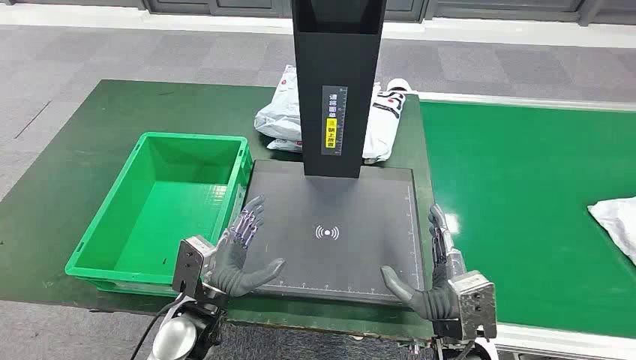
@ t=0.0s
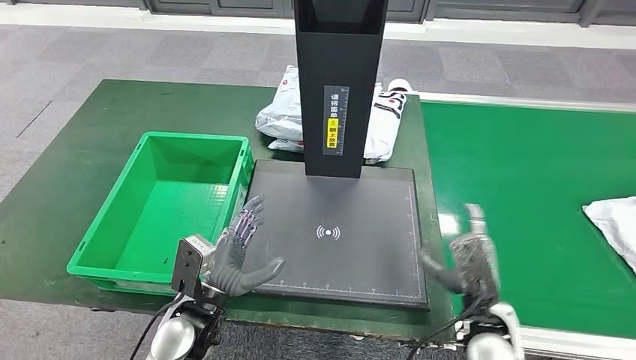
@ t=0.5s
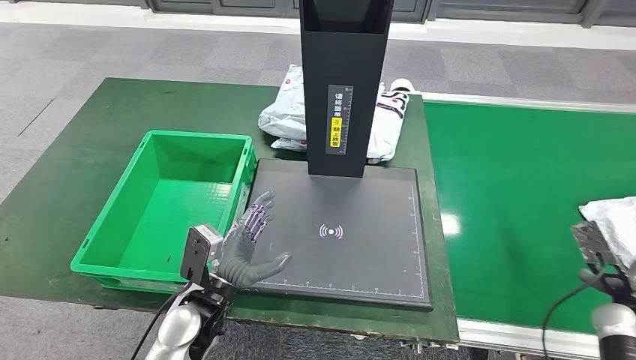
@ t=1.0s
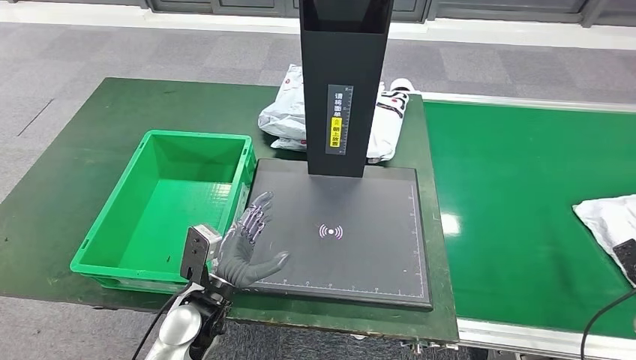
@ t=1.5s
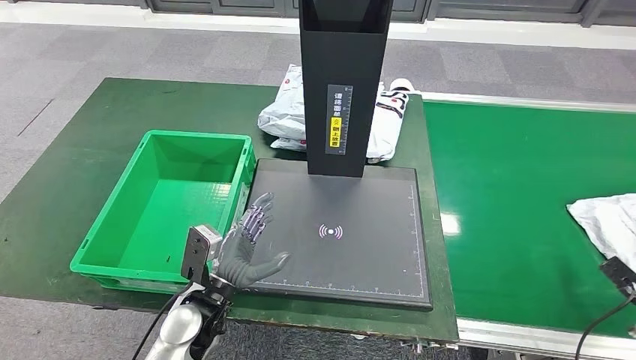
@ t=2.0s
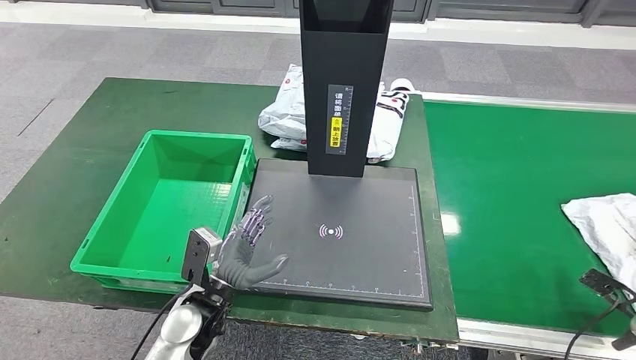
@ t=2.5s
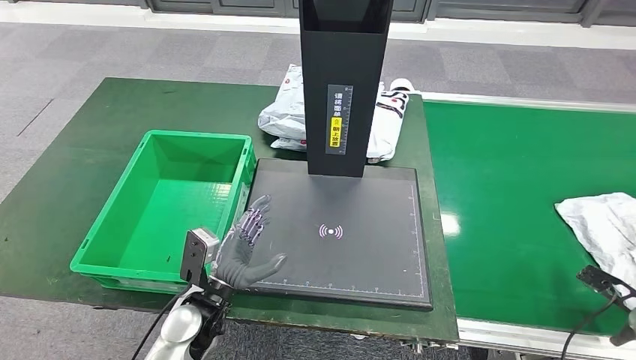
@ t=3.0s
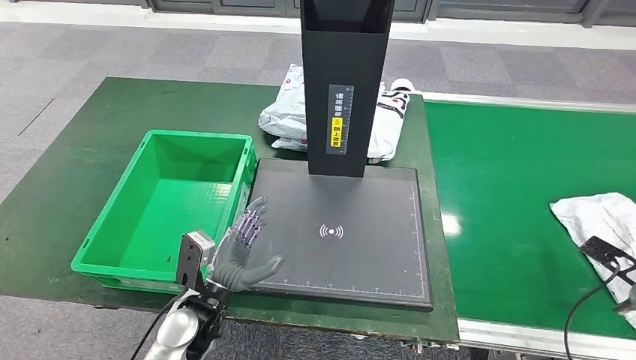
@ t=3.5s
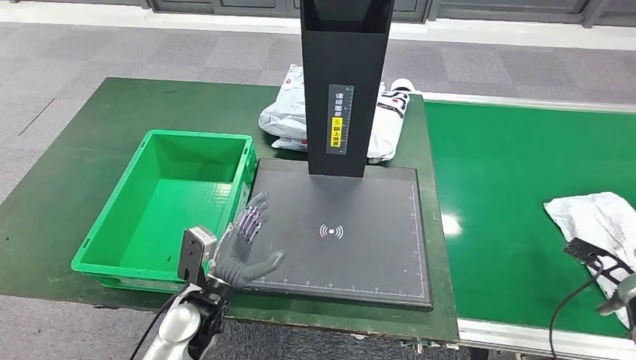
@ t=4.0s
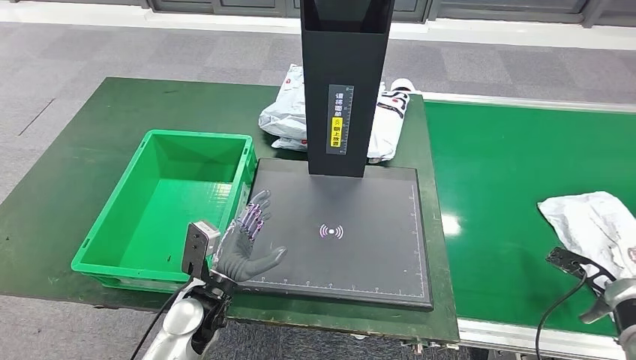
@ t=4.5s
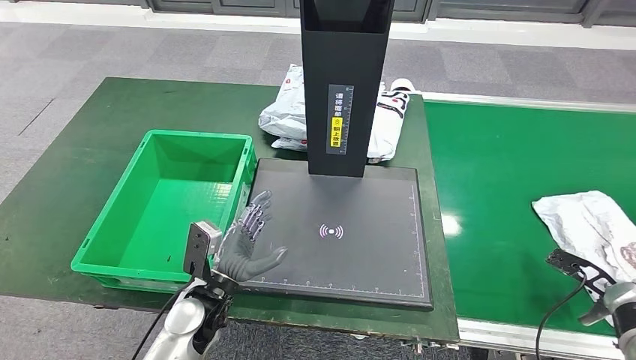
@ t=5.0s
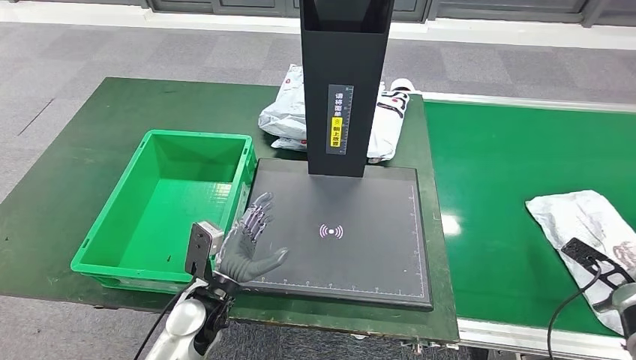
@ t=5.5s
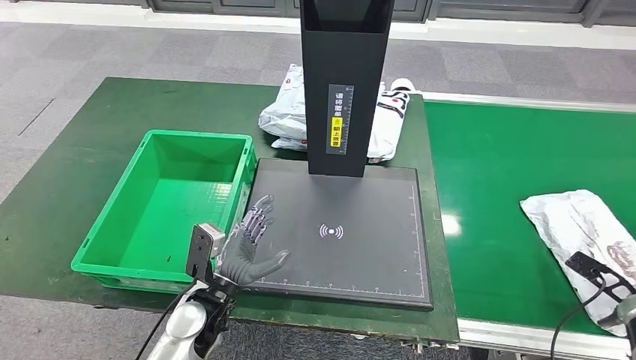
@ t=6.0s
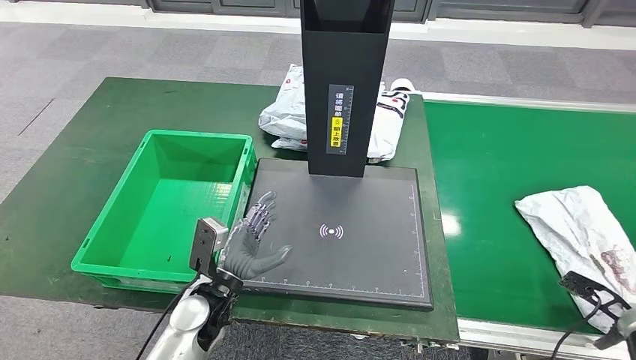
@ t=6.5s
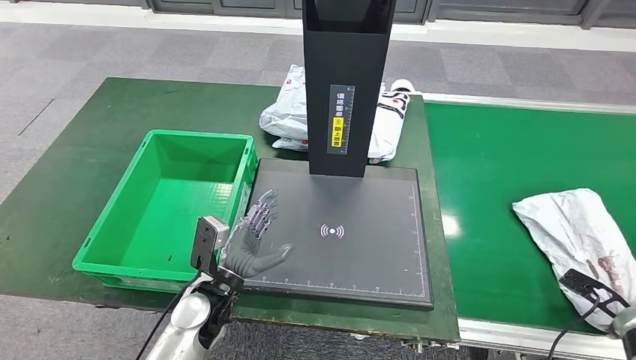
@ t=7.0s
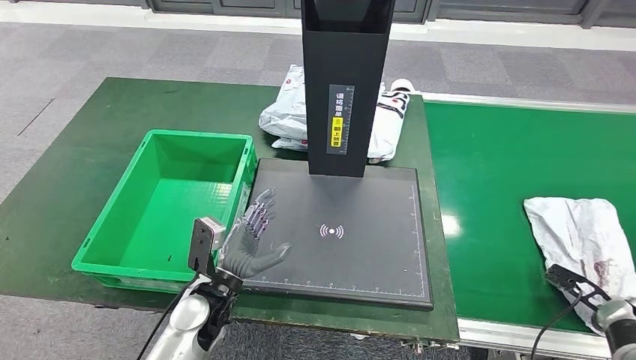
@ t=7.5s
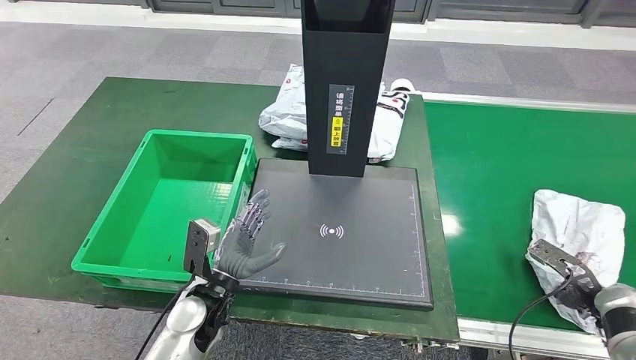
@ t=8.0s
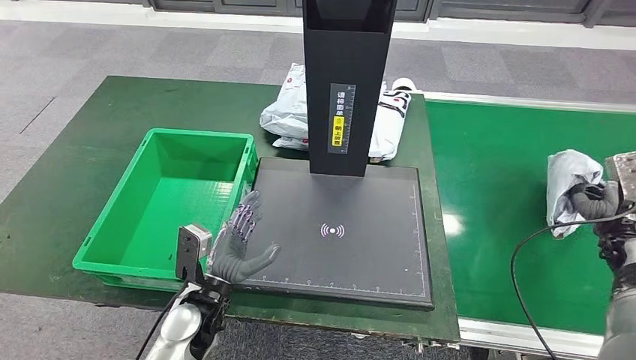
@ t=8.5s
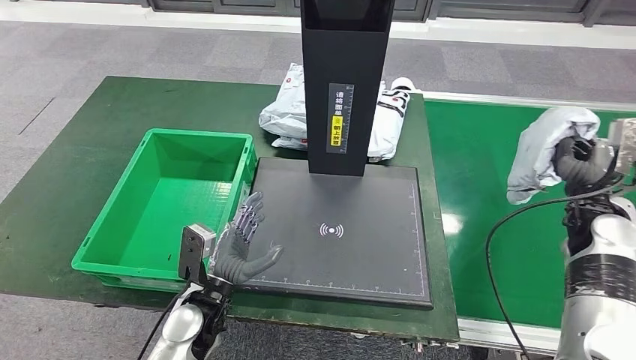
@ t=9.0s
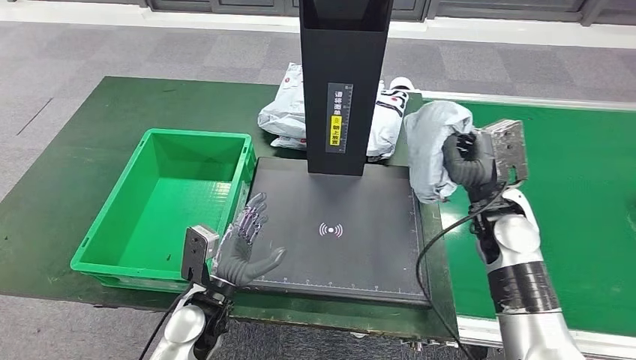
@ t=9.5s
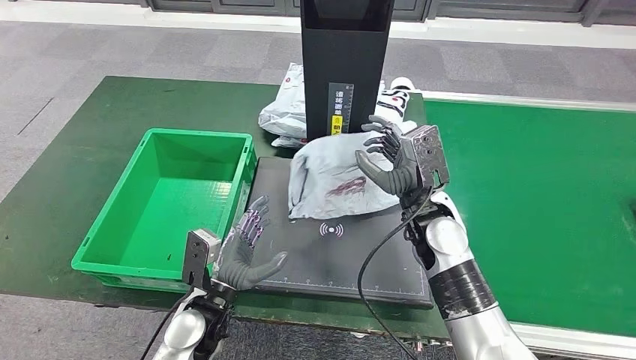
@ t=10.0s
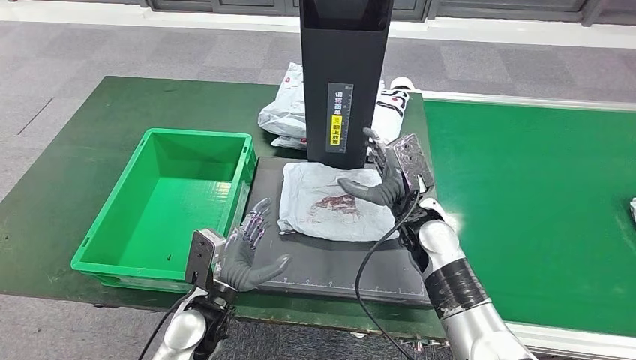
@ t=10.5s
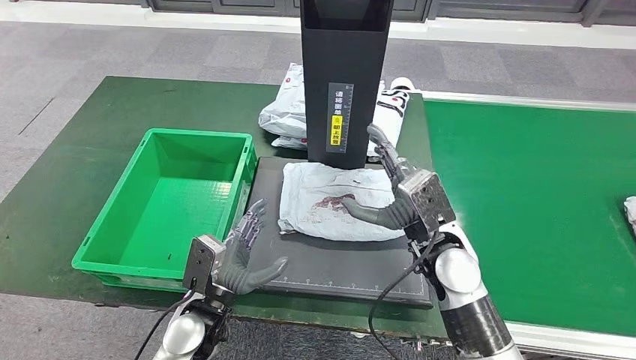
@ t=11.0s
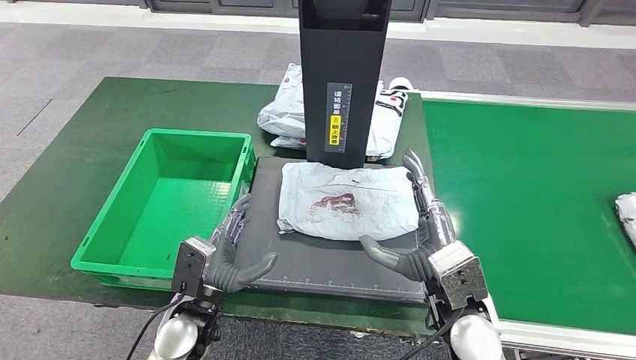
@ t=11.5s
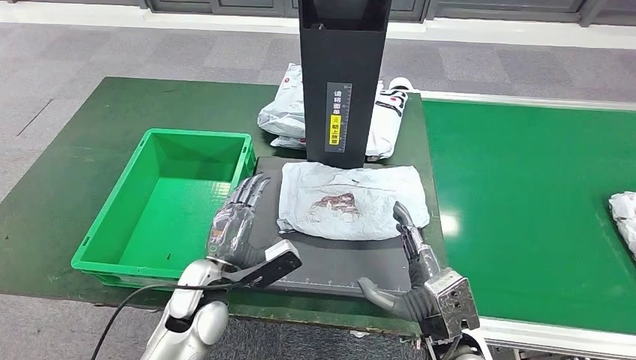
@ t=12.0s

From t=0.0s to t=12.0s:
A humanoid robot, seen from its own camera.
Step, from t=0.0s to t=9.0s: Take the parcel off the conveyor belt.
From t=2.0s to t=4.0s: The right hand is displaced forward by roughly 5 cm.
From t=4.0s to t=6.0s: The hands move only a little.
From t=10.0s to t=12.0s: The right hand heads backward, covering about 20 cm.

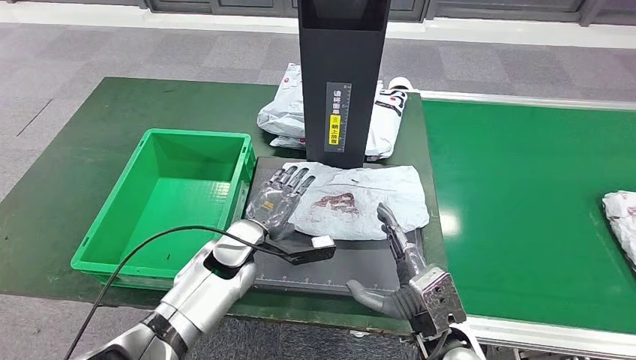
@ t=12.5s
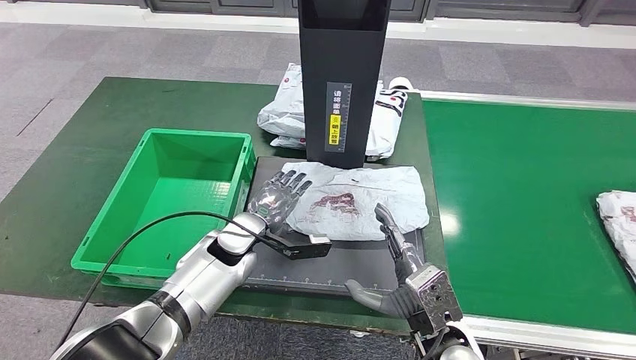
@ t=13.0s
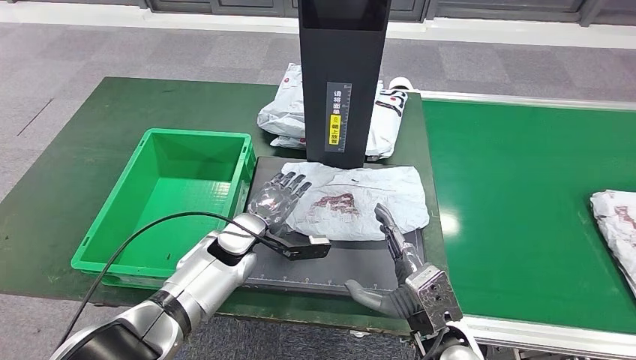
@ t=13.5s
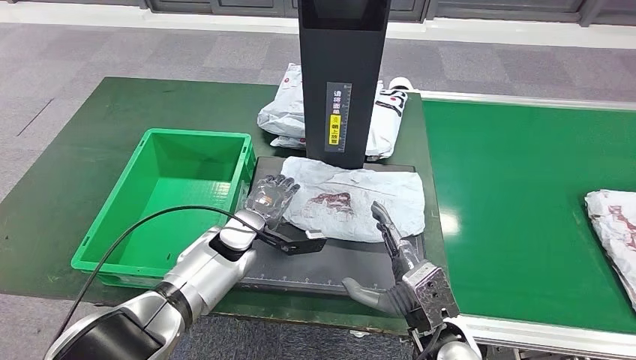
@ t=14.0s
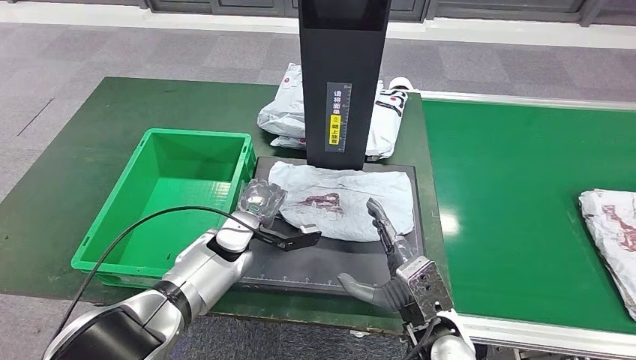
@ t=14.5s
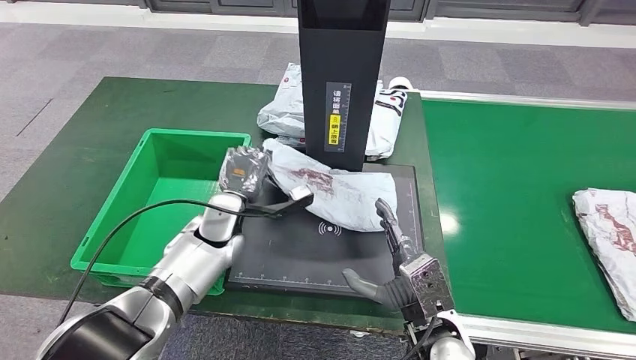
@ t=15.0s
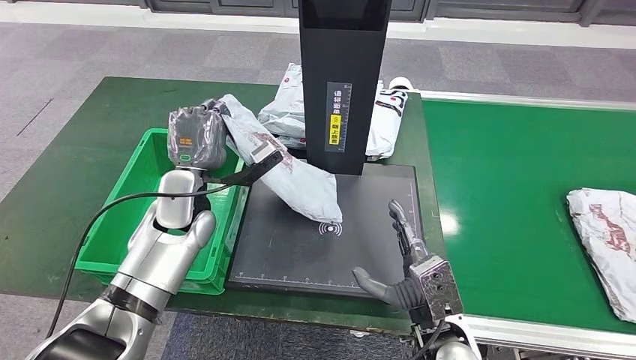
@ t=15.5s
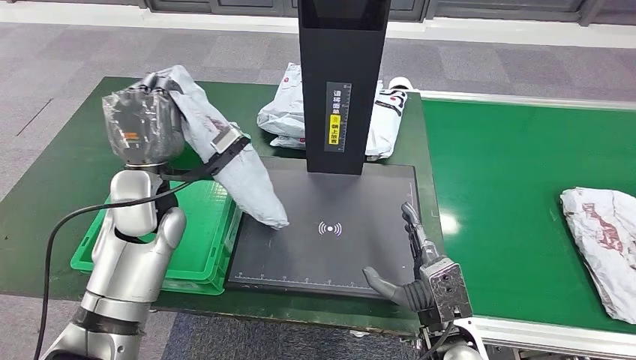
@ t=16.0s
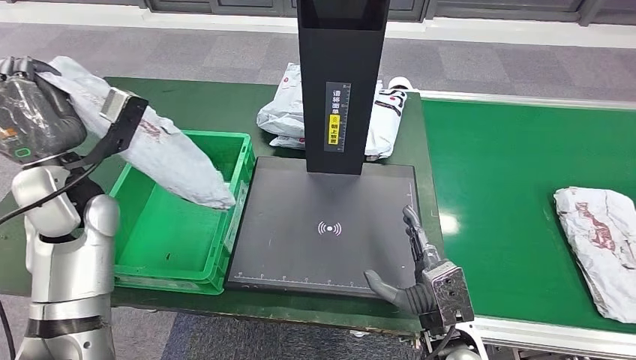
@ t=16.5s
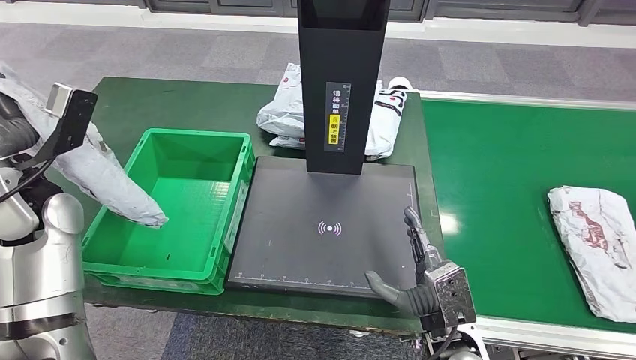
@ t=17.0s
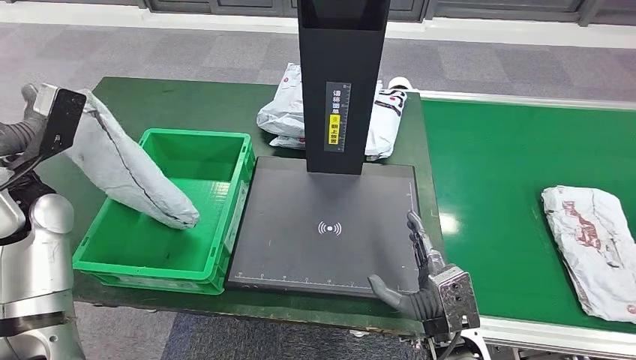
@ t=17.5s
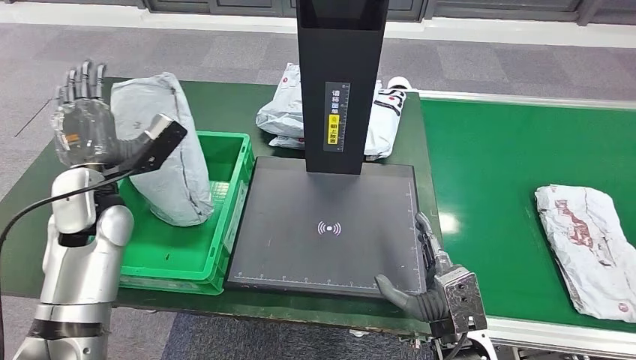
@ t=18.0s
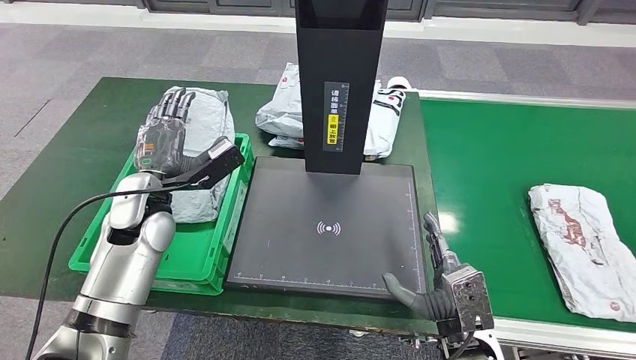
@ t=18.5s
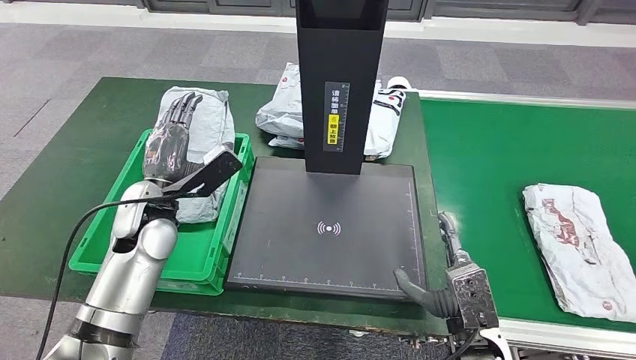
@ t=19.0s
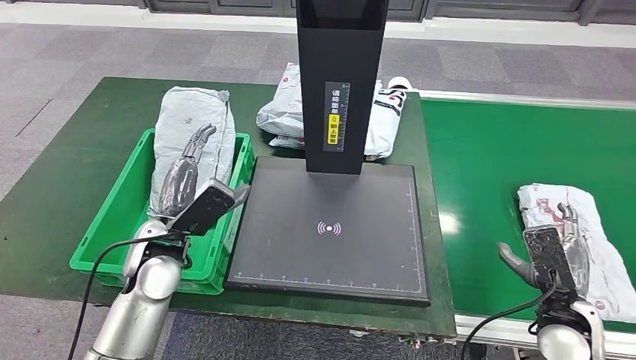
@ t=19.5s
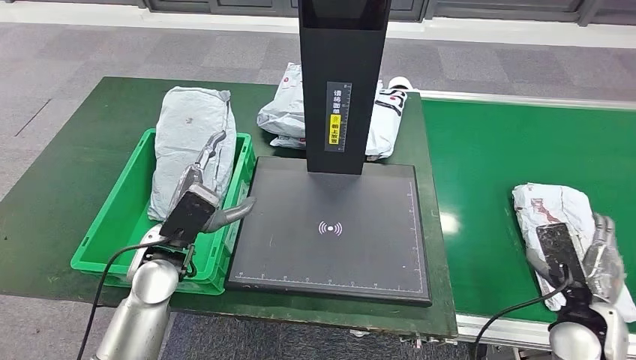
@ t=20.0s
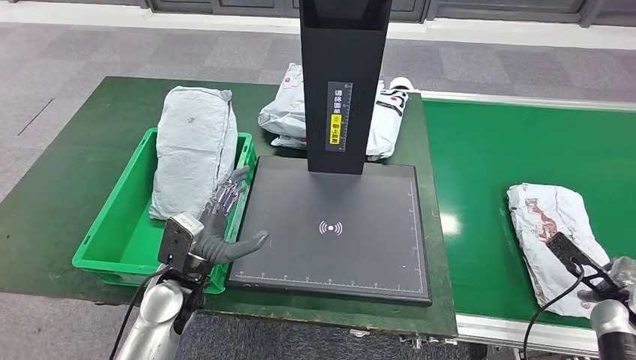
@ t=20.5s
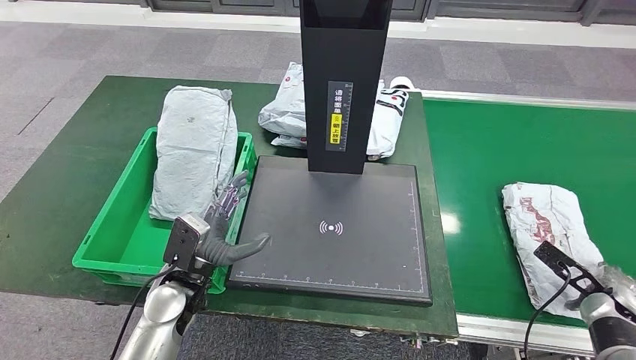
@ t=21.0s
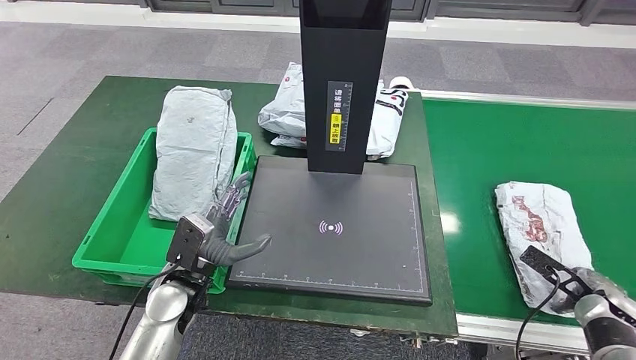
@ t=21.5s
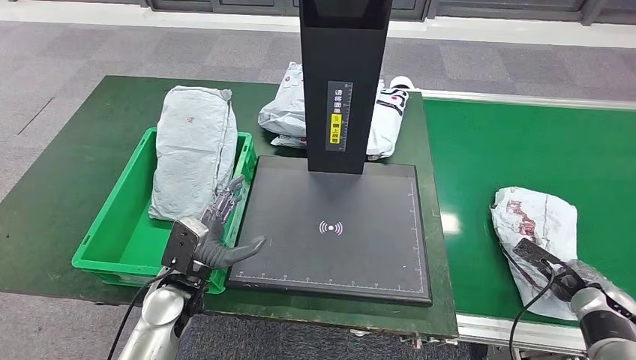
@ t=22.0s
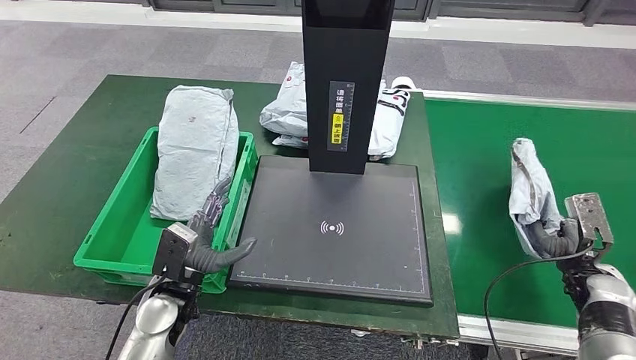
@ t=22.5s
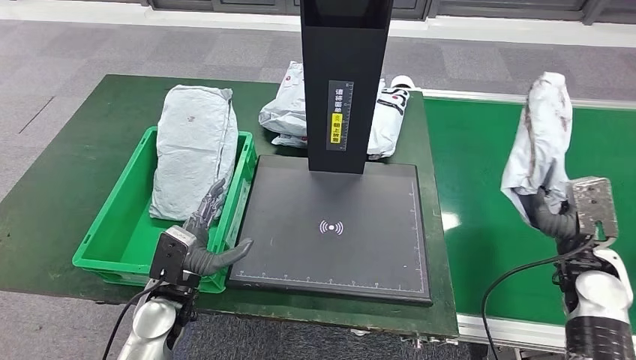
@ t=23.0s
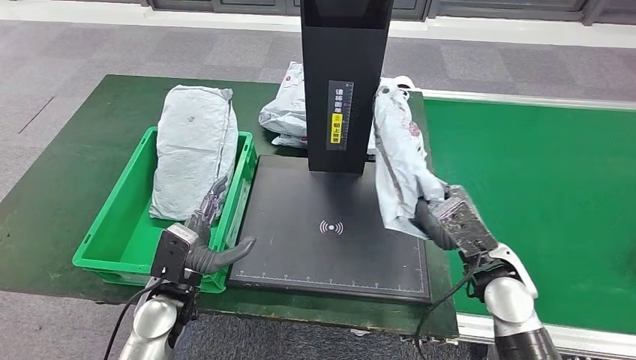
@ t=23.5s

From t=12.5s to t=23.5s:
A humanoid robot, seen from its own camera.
Step, from t=13.0s to t=16.0s: Pick up the parcel from the inbound machine.
Step, from t=16.5s to t=20.0s: Put the parcel inside the courier box.
Step, from t=20.5s to t=23.0s: Pick up the parcel from the conveyor belt.
From t=12.5s to t=14.5s: There are only small adjustments of the hands.
From t=20.0s to t=21.5s: The right hand shifts about 10 cm to the right and downward, while the left hand shifts some 5 cm downward.
